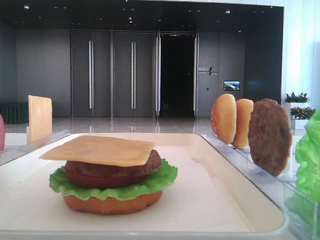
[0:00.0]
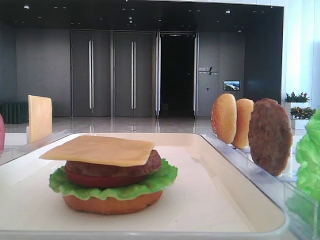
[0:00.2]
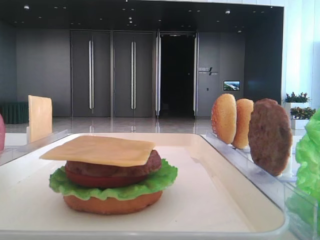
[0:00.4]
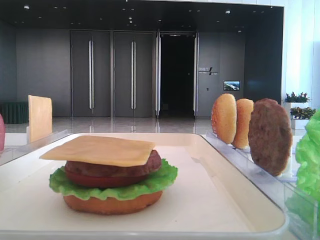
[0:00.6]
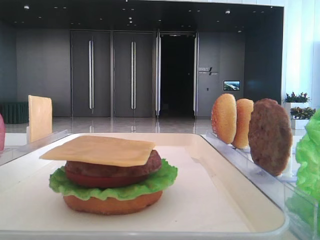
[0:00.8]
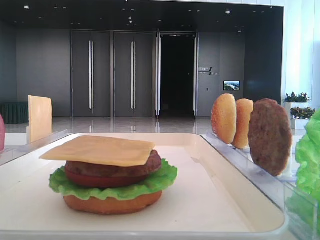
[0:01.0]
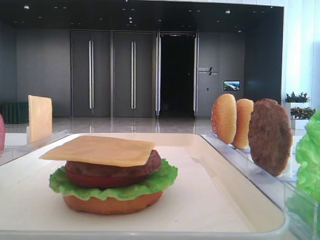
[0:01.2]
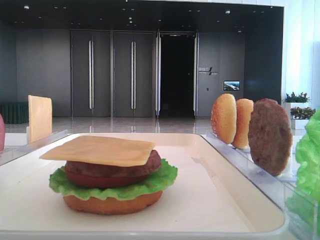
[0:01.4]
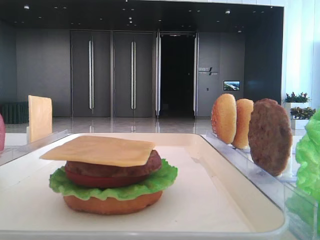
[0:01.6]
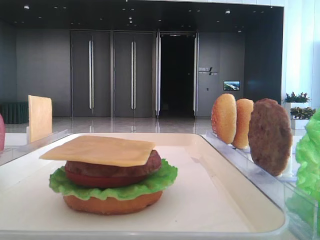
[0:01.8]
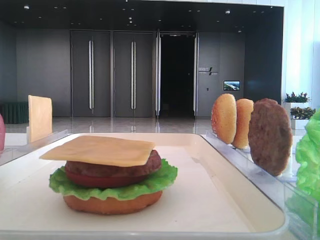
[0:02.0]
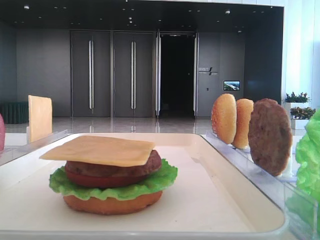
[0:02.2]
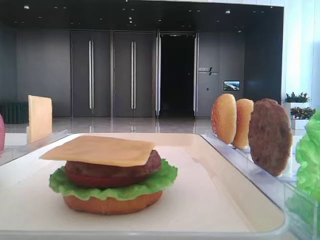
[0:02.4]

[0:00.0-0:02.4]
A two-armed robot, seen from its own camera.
0:01.2 to 0:02.4: Neither gripper changes place.

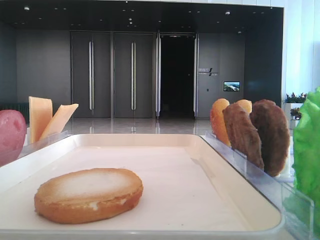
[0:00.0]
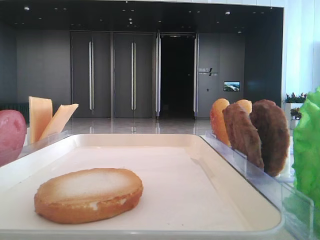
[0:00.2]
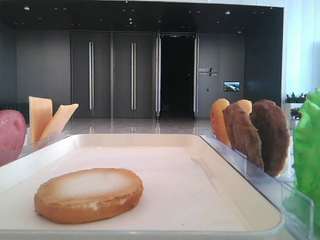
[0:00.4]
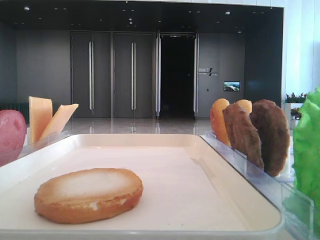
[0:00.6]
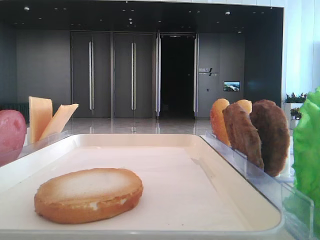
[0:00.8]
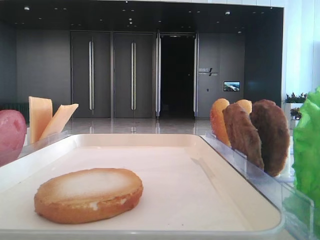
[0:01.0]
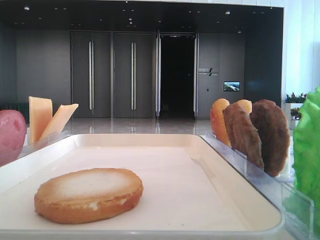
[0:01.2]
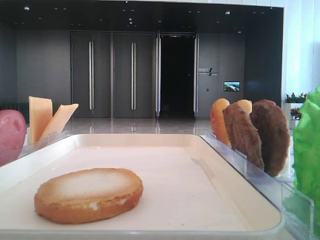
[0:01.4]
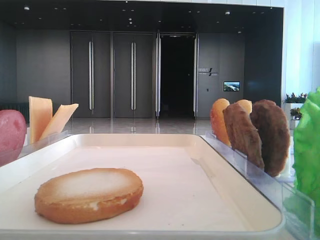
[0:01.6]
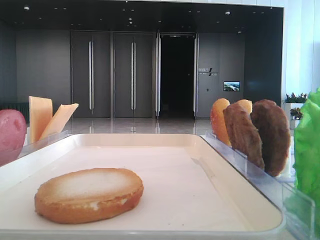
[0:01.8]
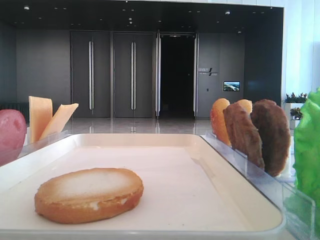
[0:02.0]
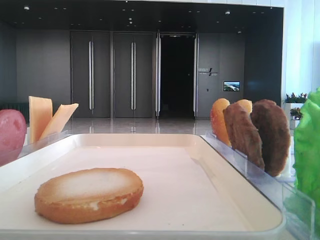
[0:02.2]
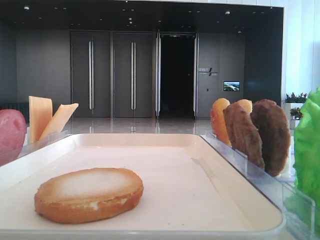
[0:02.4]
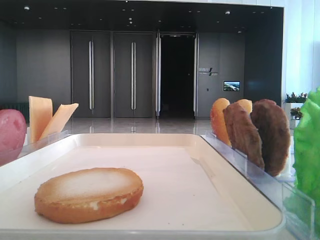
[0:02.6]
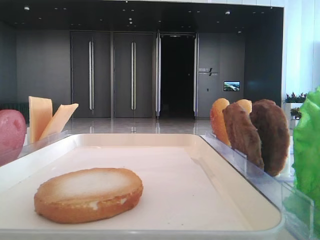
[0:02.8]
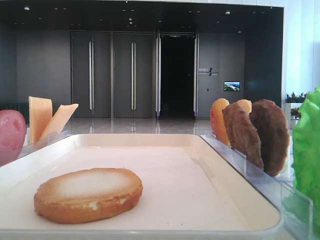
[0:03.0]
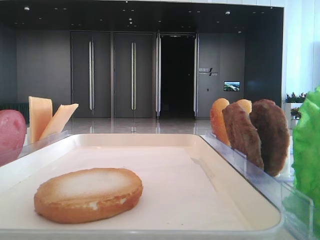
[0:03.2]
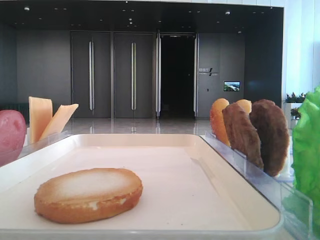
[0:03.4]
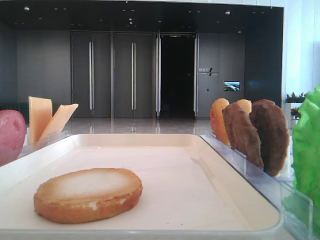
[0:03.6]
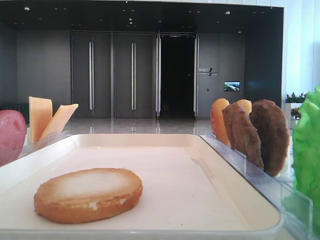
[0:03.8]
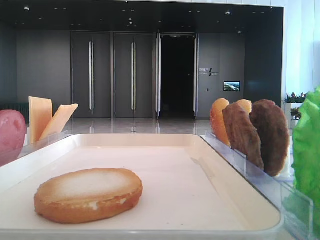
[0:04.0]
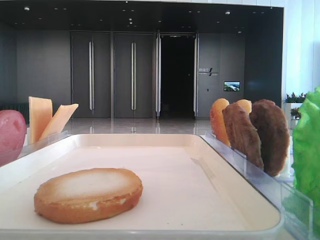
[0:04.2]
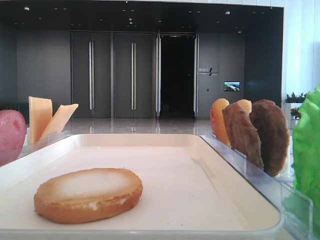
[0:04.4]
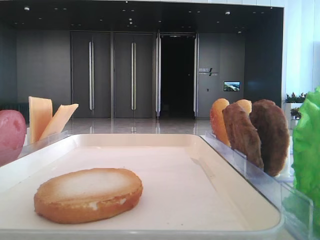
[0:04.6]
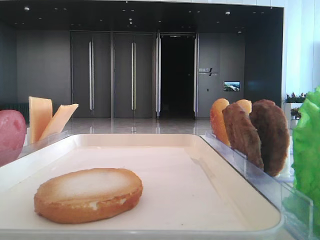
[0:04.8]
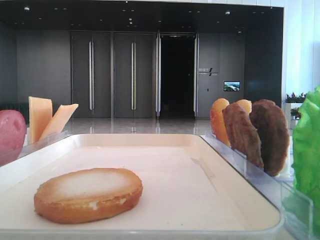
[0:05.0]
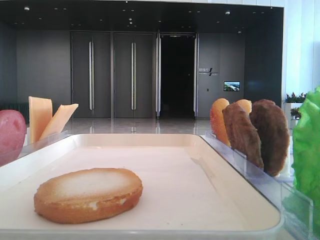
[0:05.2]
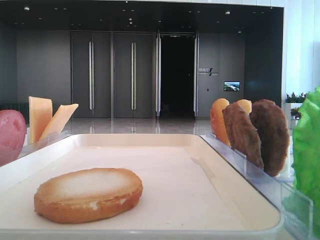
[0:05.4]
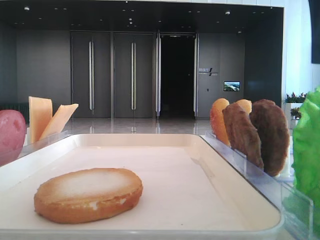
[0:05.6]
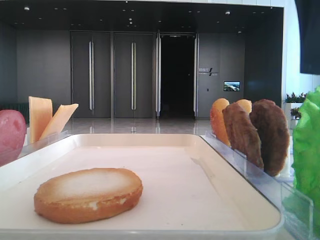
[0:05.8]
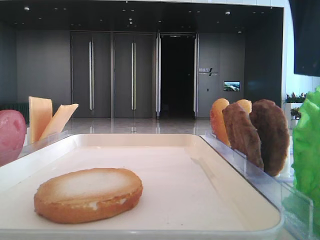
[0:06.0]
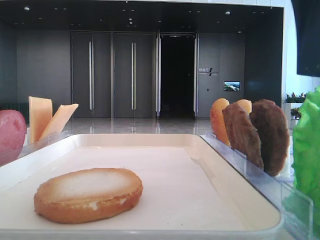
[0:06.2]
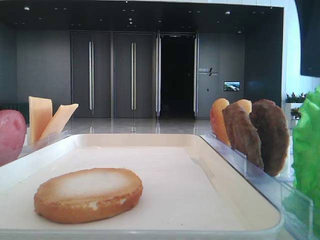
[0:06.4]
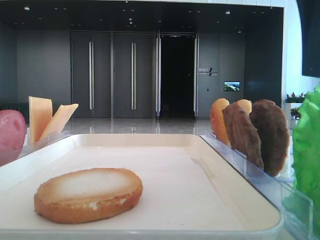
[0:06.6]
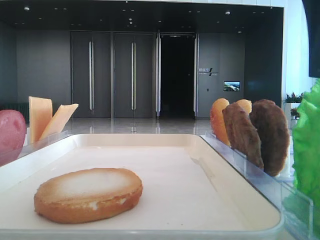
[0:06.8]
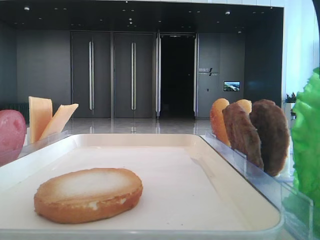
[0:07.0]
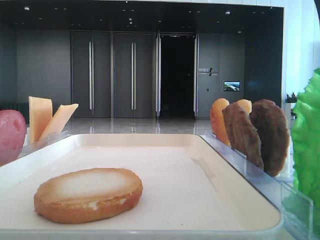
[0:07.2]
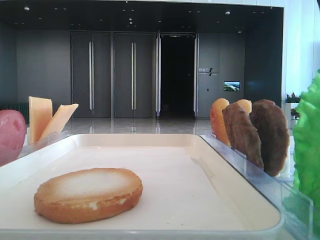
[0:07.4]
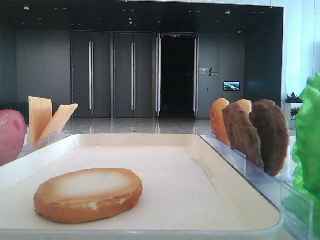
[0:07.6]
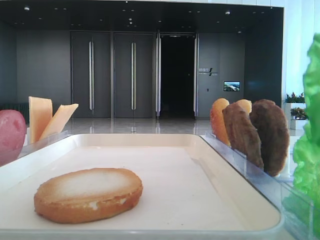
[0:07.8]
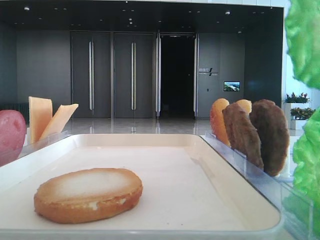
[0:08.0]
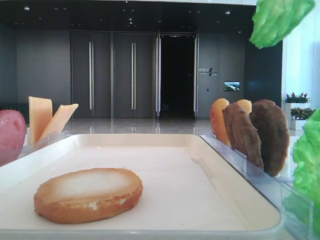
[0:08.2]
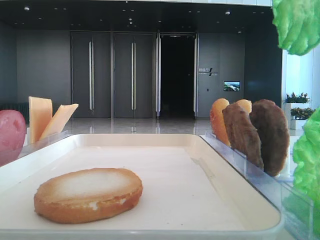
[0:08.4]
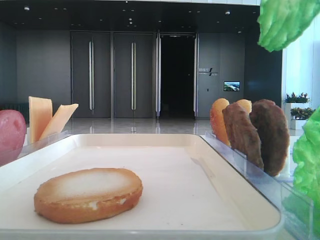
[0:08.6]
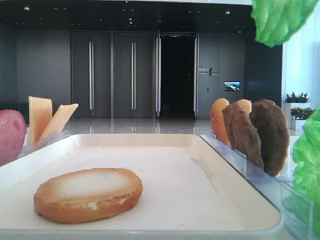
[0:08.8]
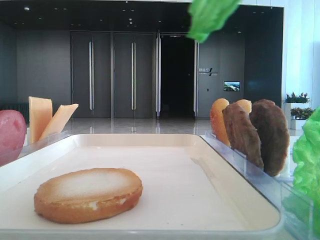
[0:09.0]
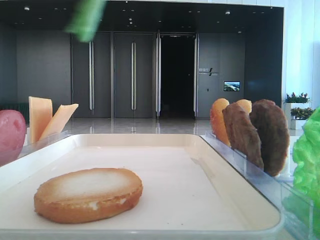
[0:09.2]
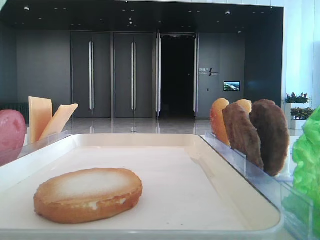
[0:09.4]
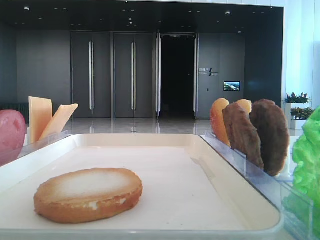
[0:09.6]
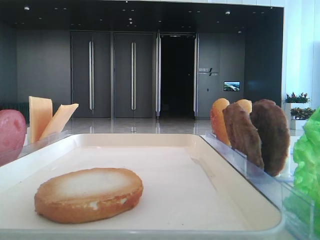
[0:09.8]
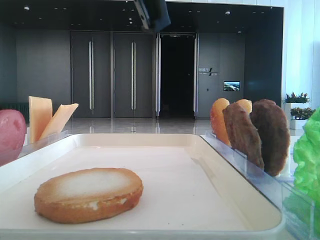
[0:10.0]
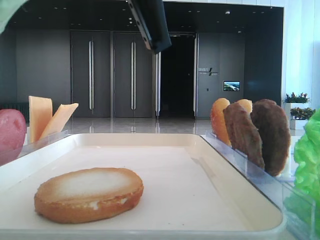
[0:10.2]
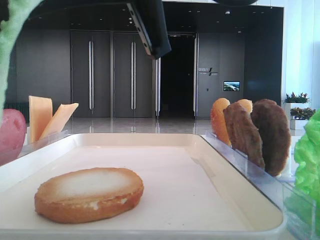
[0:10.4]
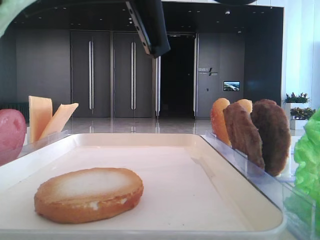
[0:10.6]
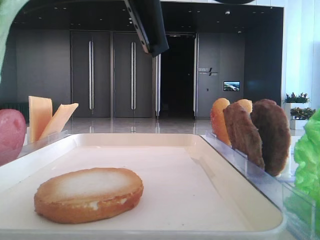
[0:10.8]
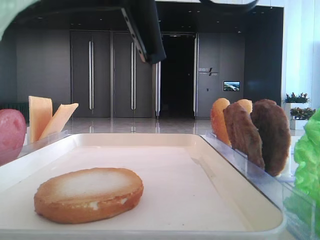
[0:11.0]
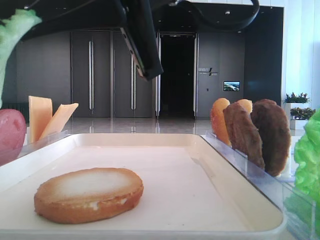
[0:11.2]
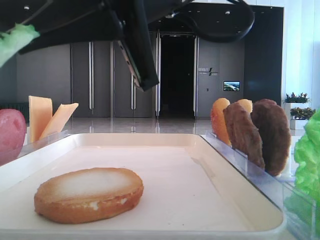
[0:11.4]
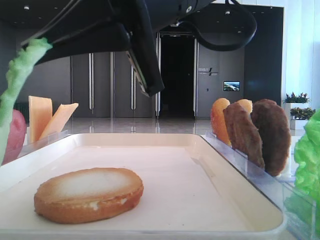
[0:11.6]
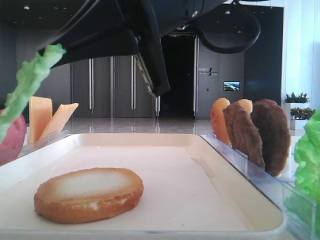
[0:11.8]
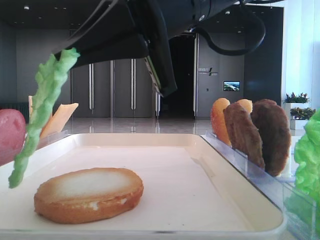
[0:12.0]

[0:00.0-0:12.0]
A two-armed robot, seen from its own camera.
Step, 0:00.0 to 0:07.2: Grab the lettuce leaf with the right hand.
0:04.4 to 0:06.0: The right gripper shifts roughly 10 cm downward and forward.
0:06.0 to 0:07.6: The right gripper closes up.
0:07.6 to 0:09.0: The right gripper shifts roughly 10 cm upward.
0:09.0 to 0:10.4: The right gripper goes about 20 cm downward, to the left and forward.
0:10.4 to 0:12.0: The right gripper moves some 5 cm.

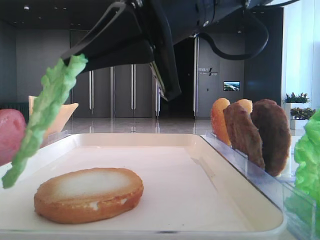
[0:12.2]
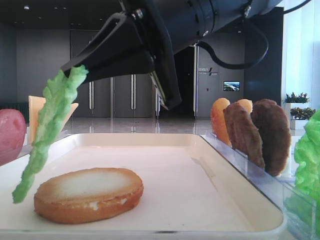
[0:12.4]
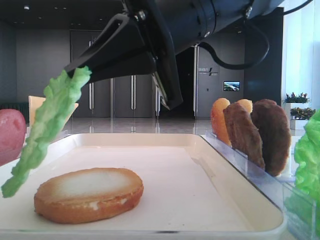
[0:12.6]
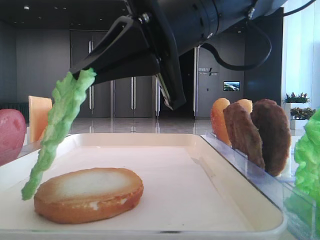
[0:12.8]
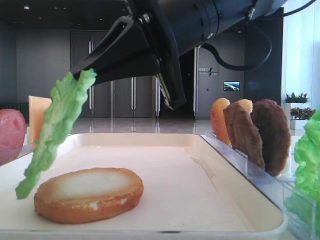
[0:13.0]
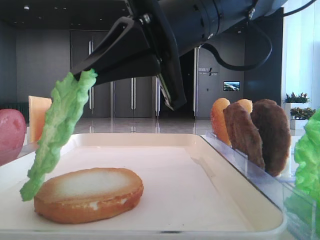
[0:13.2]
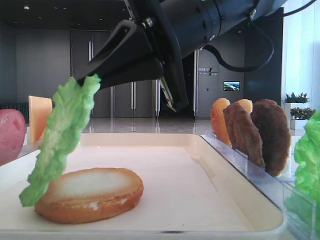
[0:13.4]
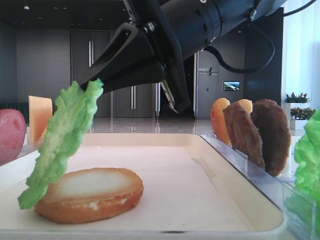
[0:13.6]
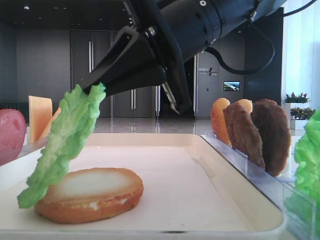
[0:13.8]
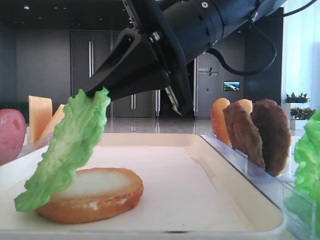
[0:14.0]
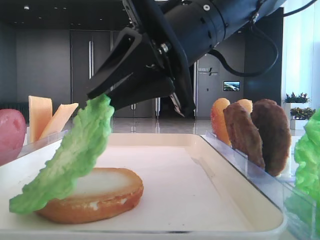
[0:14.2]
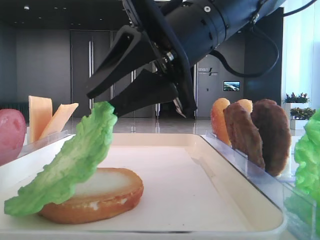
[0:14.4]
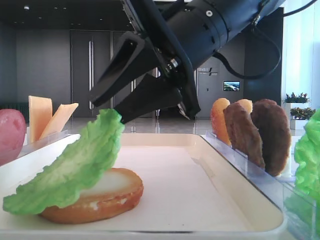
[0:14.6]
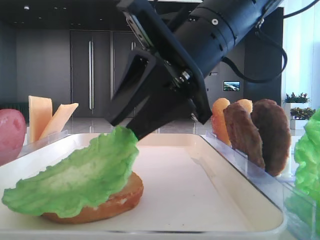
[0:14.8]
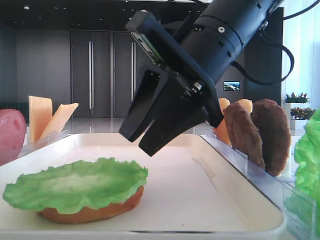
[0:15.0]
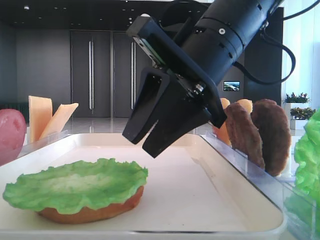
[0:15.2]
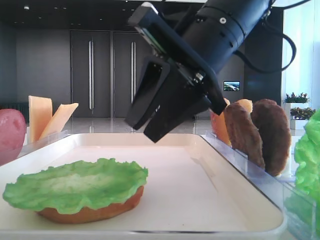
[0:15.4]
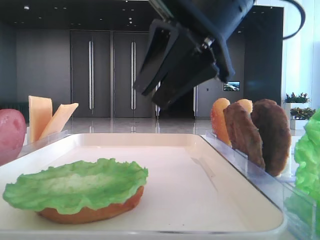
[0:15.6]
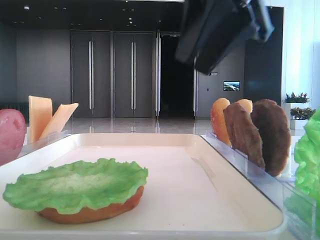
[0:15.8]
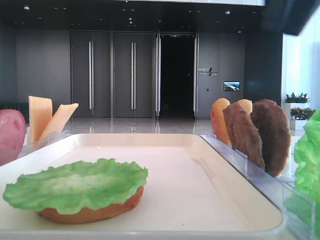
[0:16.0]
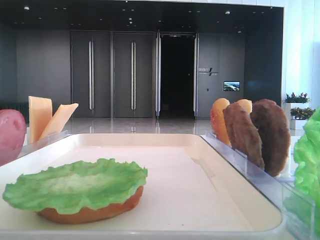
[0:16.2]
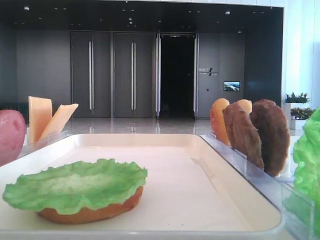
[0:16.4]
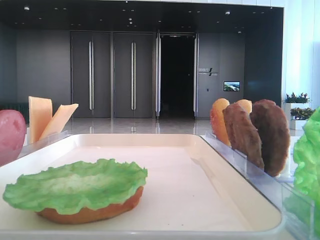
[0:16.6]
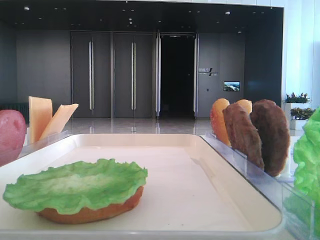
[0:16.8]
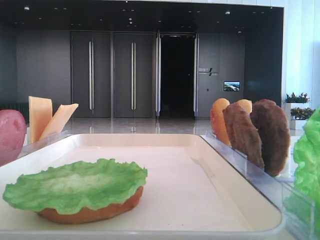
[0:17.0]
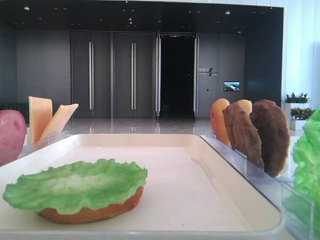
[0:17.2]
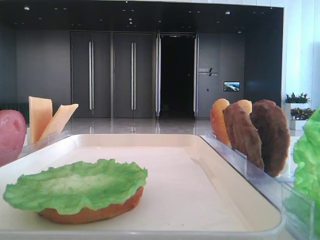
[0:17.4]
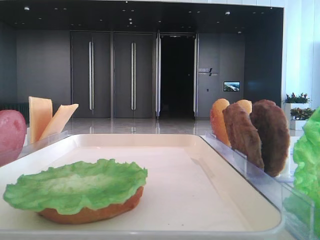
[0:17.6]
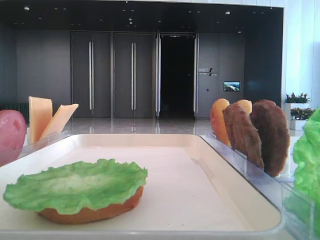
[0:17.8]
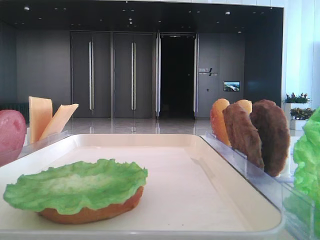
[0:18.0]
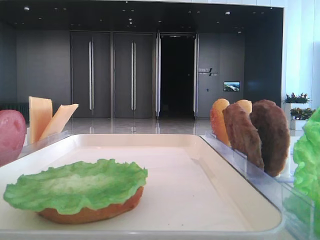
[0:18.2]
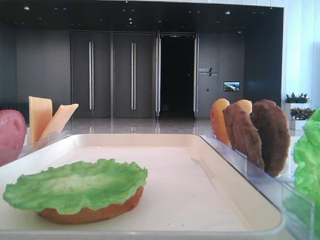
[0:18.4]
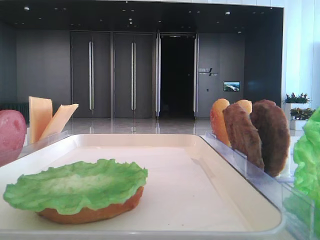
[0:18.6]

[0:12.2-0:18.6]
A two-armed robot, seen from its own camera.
Step, 0:12.2 to 0:15.0: Place the lettuce leaf on the bottom bread with the right hand.
0:12.2 to 0:13.8: The grippers make only small movements.
0:13.8 to 0:15.4: The right gripper opens its fingers.
0:15.4 to 0:17.0: The right gripper heads to the right, backward and upward, covering approximately 35 cm.

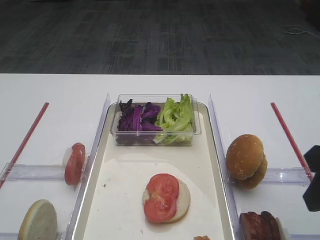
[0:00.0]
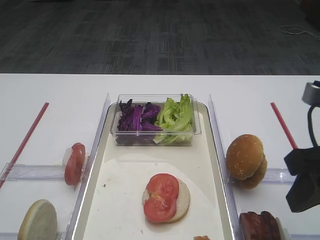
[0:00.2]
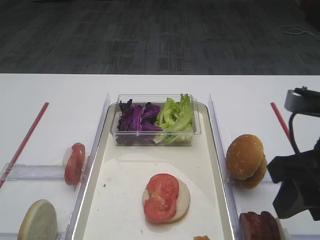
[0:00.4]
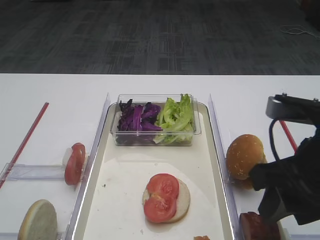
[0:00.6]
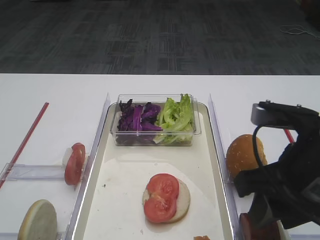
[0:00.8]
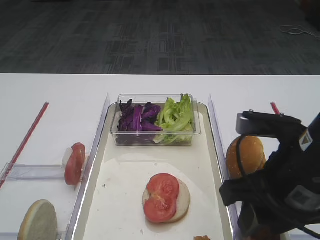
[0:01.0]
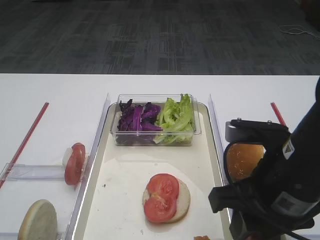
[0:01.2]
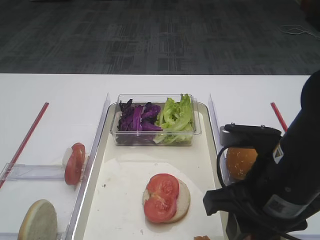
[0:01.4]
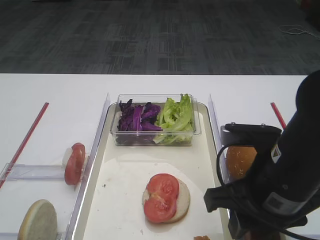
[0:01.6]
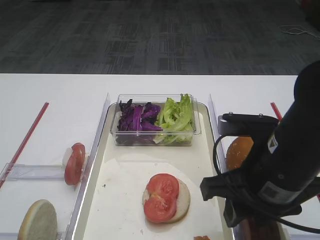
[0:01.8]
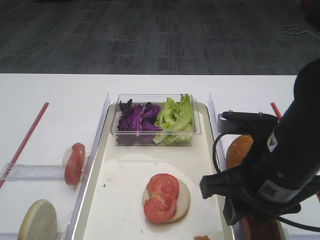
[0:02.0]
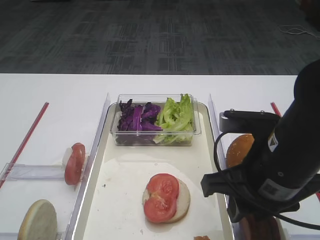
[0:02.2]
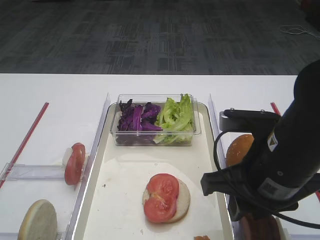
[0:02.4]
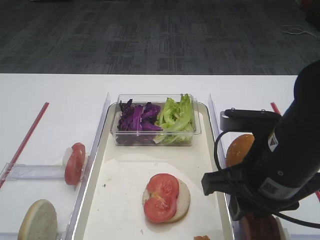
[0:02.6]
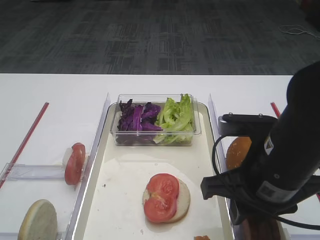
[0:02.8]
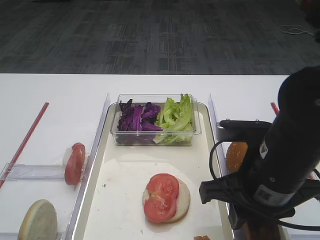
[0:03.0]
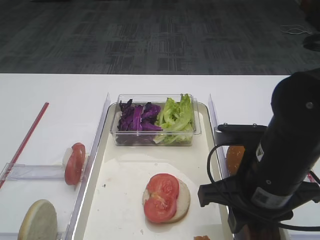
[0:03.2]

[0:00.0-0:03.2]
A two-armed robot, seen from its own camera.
0:00.0 to 0:01.6: The right gripper shifts approximately 10 cm to the left and downward.
0:01.6 to 0:03.2: The grippers make only small movements.
